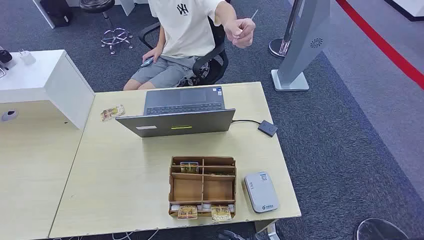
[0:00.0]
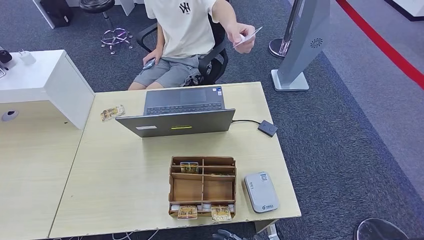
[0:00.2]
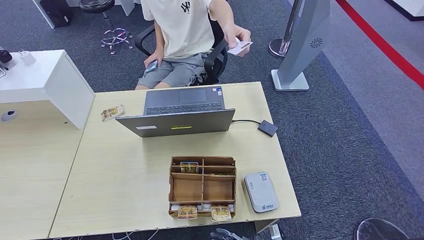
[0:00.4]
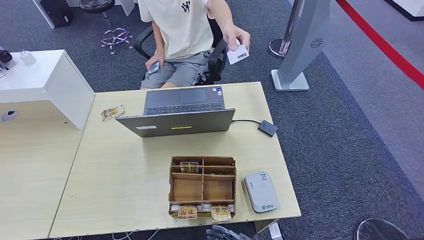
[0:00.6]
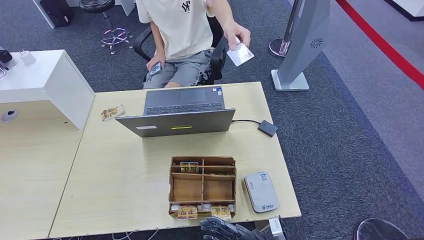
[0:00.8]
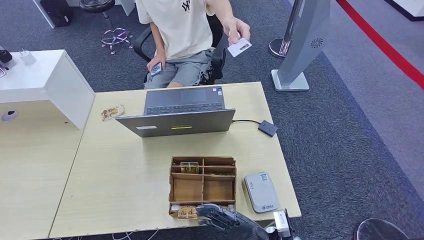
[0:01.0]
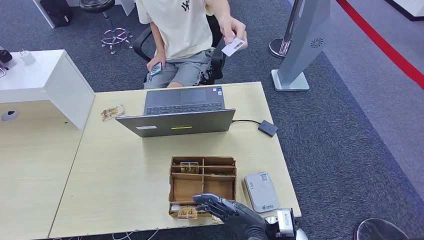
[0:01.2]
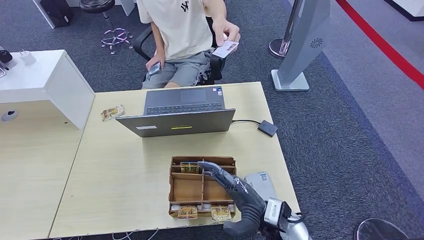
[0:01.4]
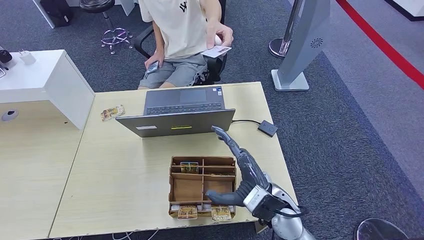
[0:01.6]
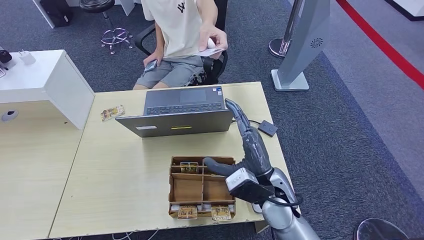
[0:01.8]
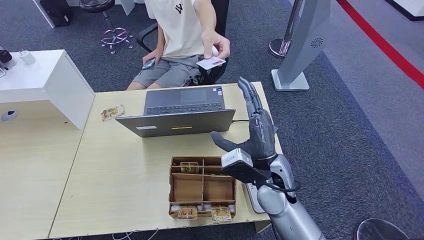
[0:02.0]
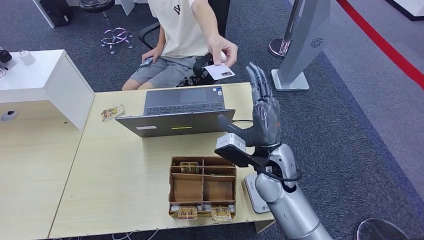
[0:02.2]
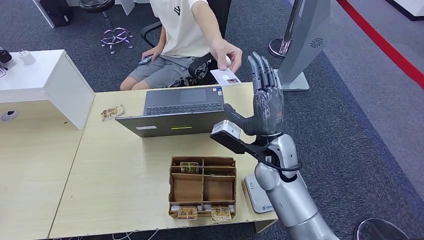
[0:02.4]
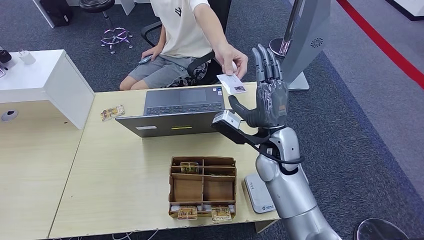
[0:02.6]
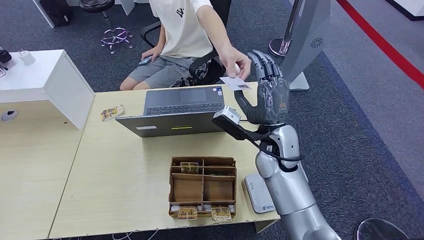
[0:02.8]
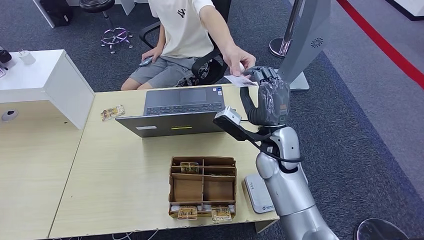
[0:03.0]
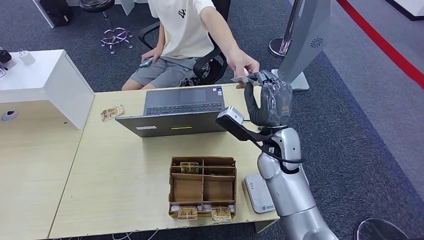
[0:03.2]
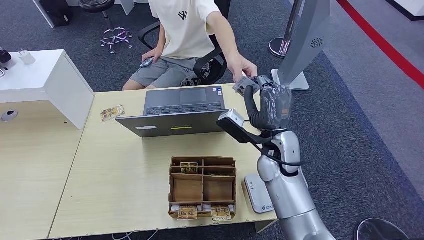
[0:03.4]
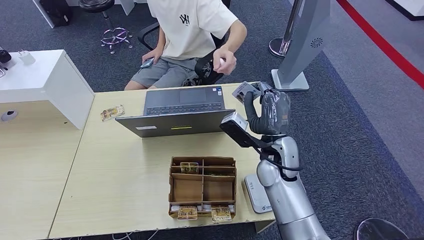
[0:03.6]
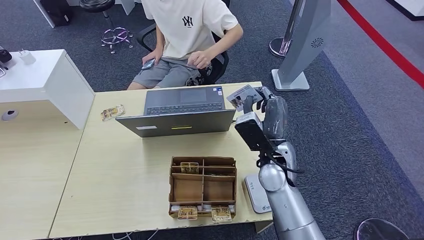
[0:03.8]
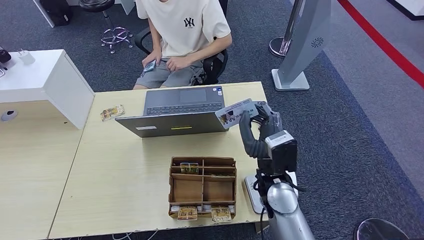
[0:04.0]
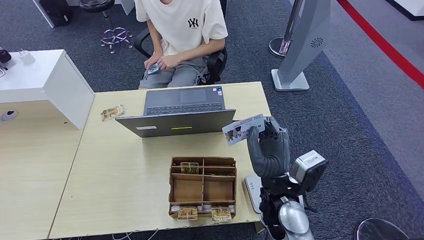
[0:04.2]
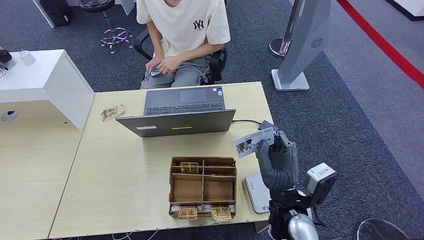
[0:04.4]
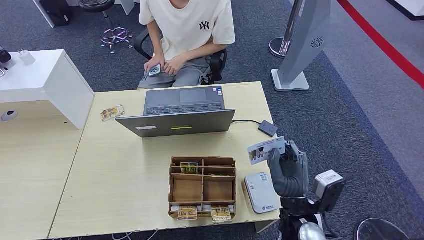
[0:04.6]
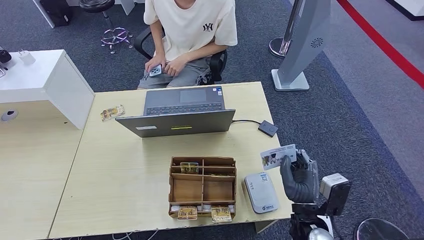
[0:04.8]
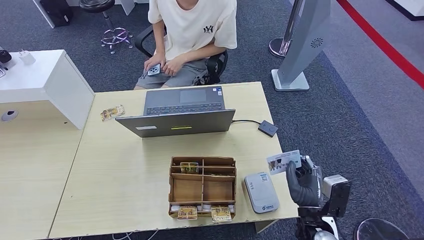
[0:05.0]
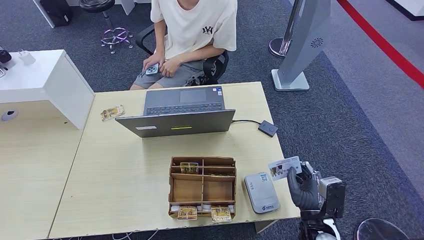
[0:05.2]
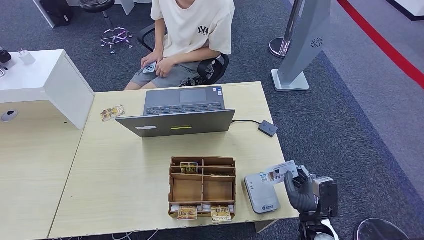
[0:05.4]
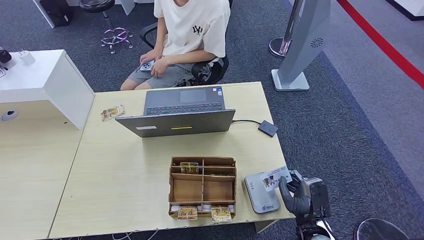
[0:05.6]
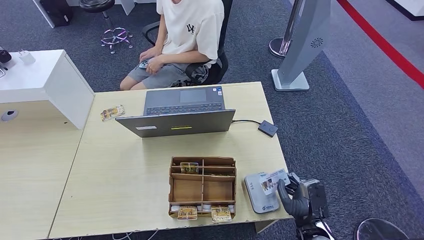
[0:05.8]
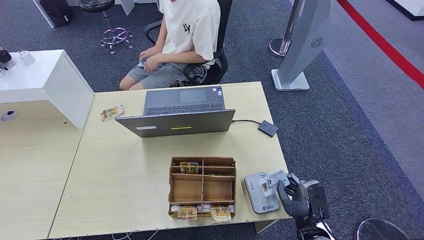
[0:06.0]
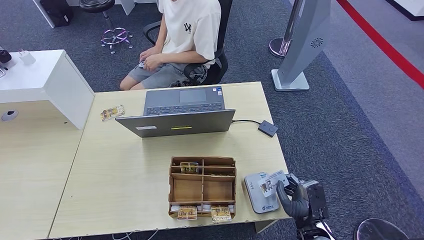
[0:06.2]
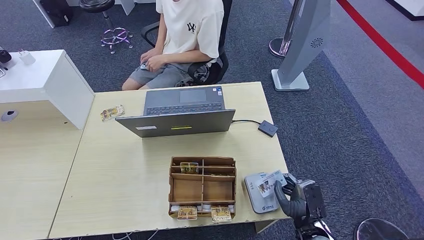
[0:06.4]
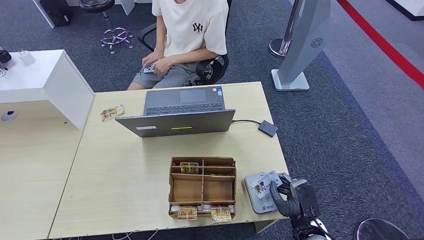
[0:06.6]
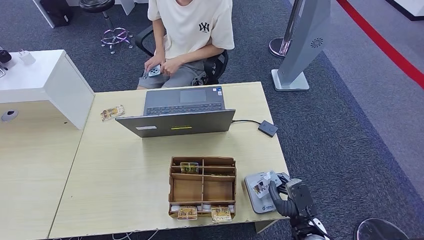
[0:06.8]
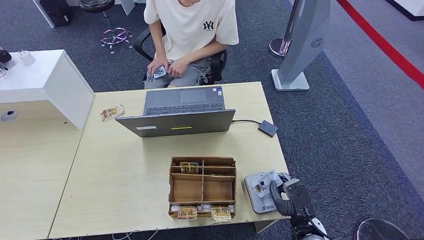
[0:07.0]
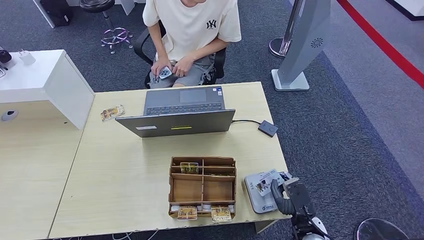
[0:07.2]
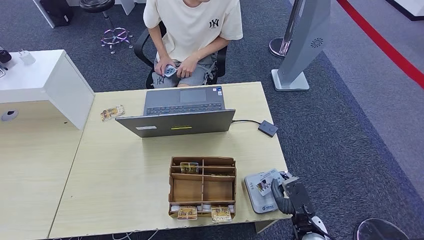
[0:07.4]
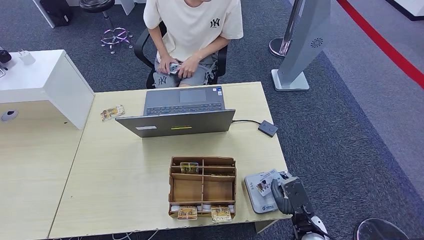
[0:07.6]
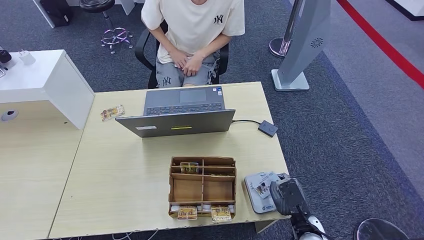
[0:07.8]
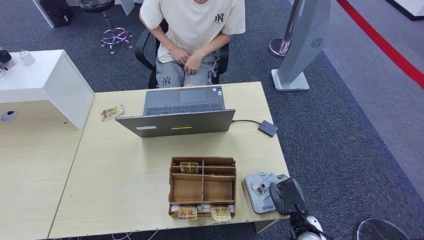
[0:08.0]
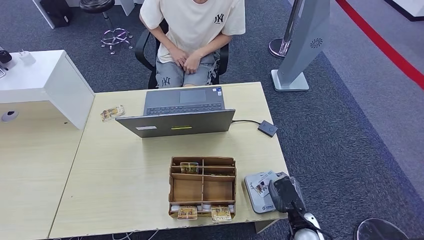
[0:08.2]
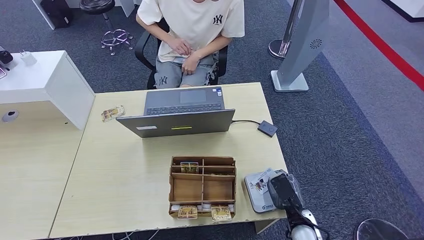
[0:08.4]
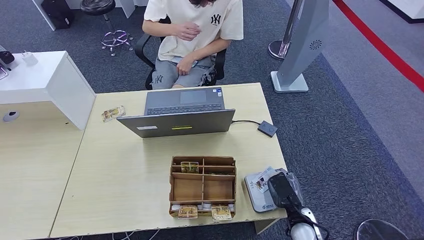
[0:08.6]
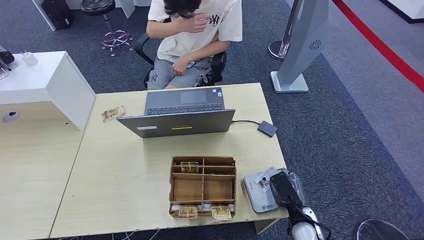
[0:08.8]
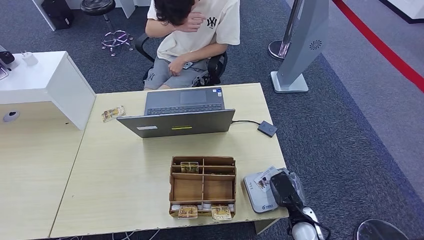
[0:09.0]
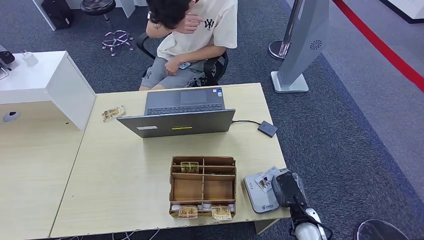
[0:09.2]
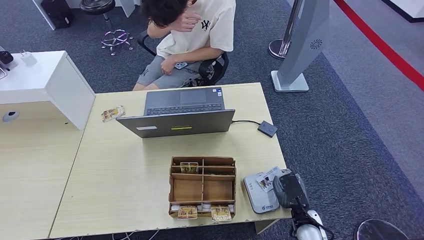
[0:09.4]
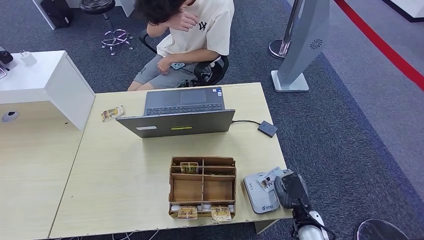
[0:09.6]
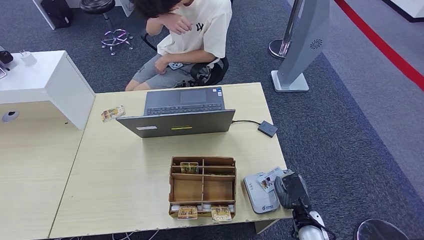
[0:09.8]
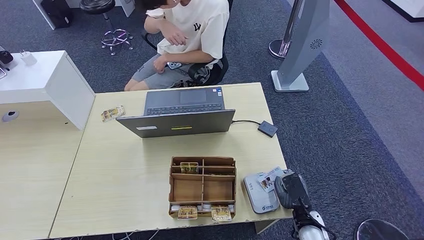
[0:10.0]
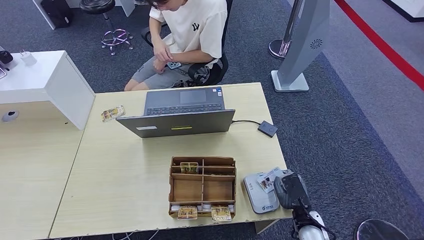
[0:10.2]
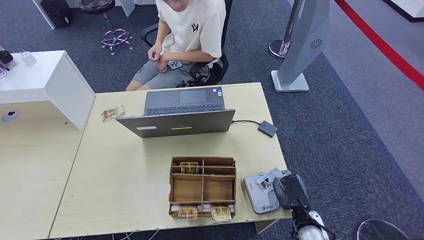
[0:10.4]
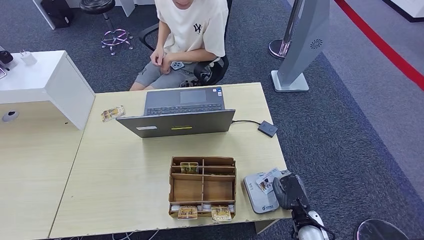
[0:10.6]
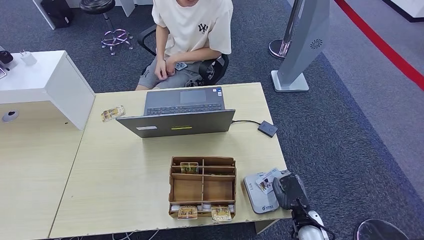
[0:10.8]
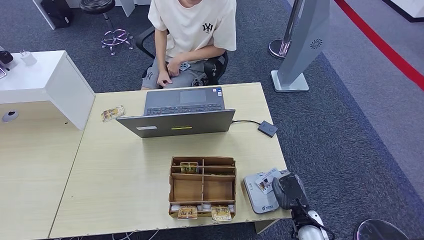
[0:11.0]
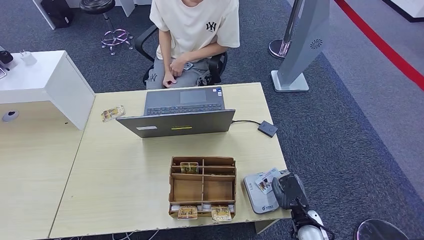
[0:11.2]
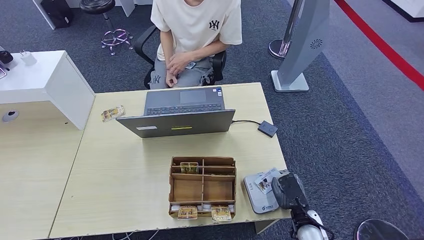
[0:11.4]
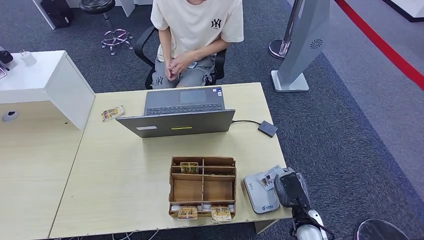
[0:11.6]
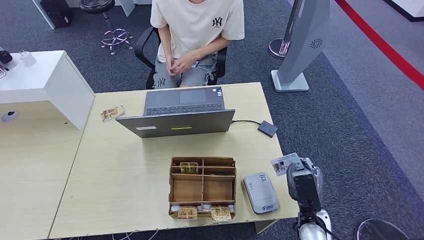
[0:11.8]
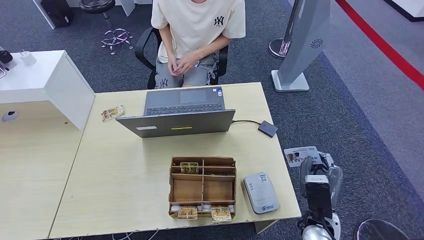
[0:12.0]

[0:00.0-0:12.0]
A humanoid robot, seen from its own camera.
Step, 0:00.0 to 0:04.4: Take the ID card from the person's hand.
0:01.6 to 0:03.0: The right hand moves forward and upward, roughly 15 cm.
0:03.0 to 0:04.4: The right hand travels backward and downward by roughly 15 cm.
0:04.4 to 0:06.0: The right hand heads downward and to the right, covering some 15 cm.
0:06.0 to 0:07.6: The hands make only small movements.
0:07.6 to 0:10.4: The hands move only a little.
0:10.4 to 0:12.0: The right hand is displaced upward by about 5 cm.

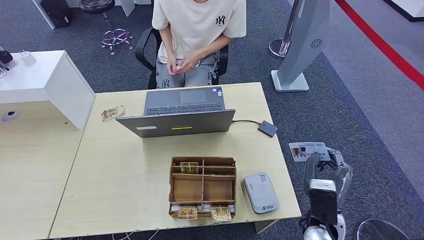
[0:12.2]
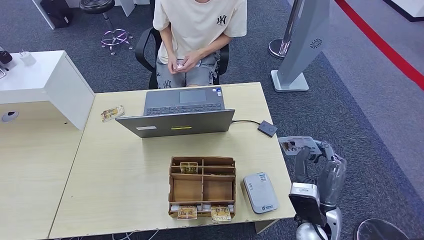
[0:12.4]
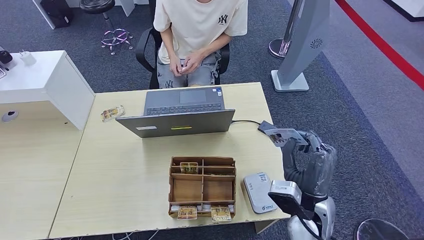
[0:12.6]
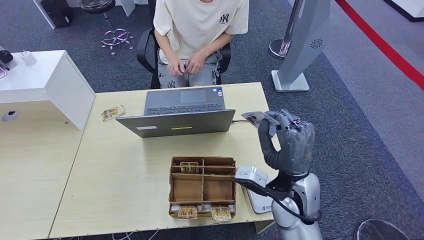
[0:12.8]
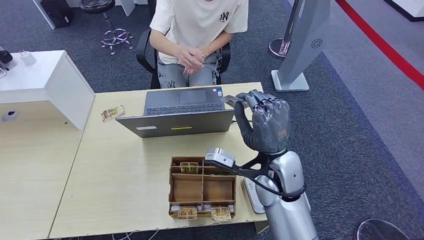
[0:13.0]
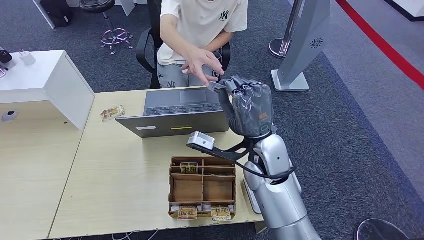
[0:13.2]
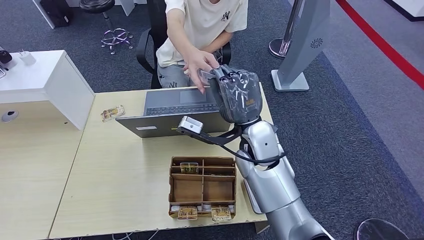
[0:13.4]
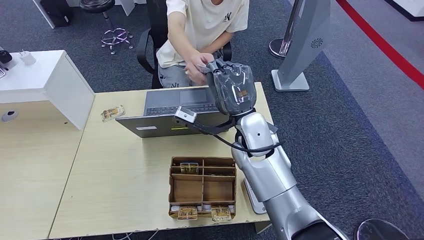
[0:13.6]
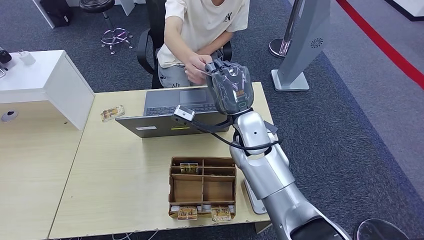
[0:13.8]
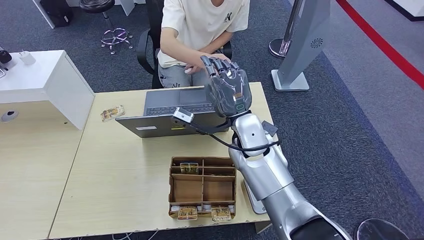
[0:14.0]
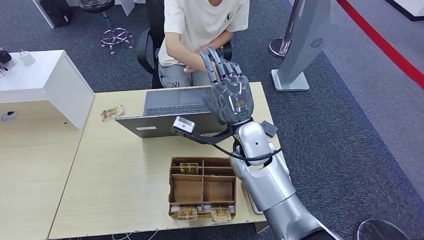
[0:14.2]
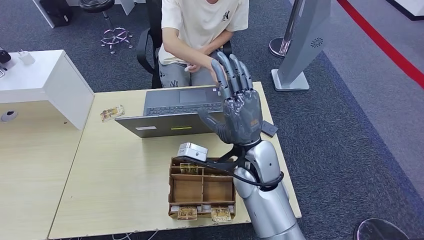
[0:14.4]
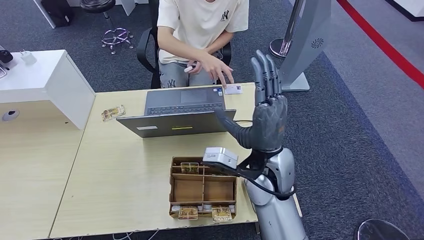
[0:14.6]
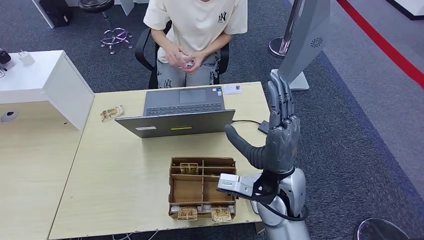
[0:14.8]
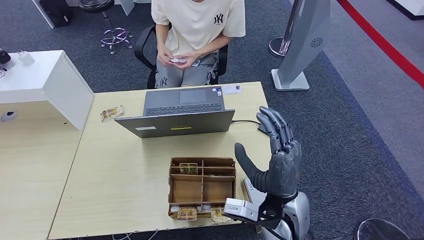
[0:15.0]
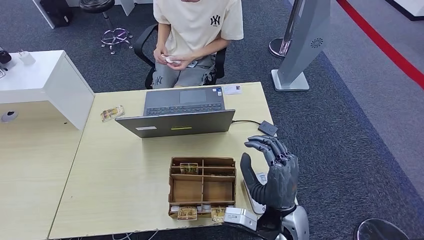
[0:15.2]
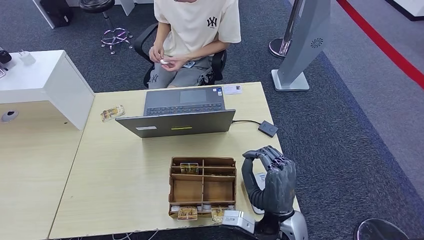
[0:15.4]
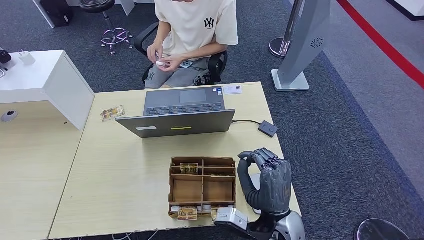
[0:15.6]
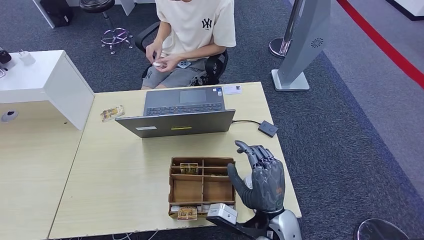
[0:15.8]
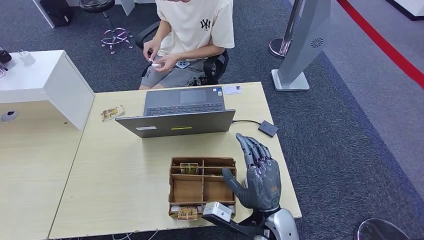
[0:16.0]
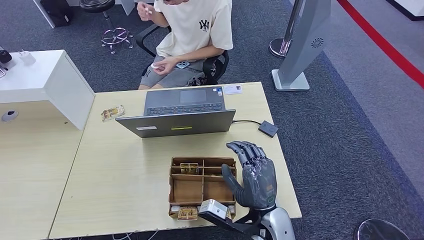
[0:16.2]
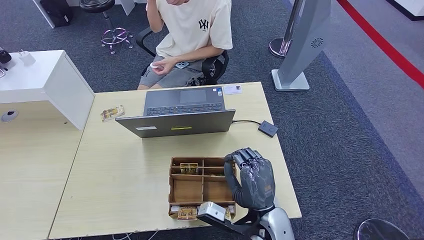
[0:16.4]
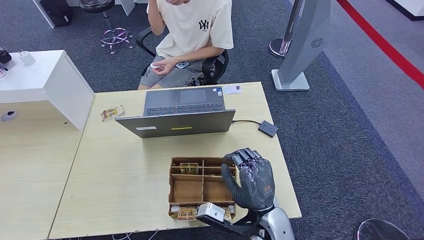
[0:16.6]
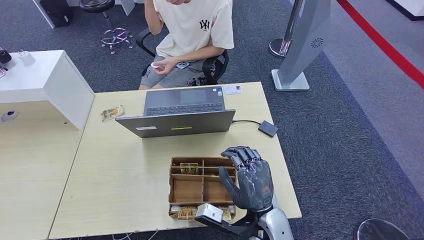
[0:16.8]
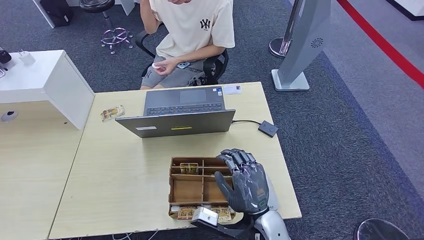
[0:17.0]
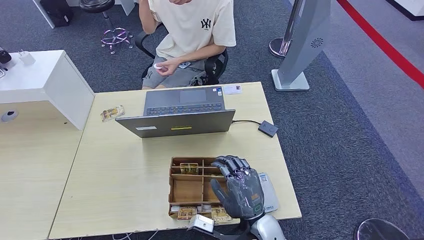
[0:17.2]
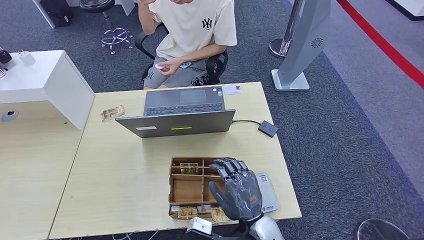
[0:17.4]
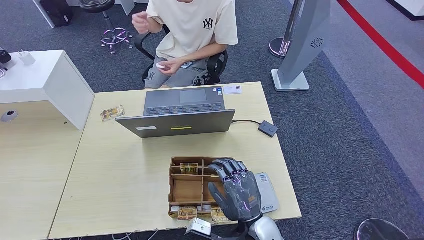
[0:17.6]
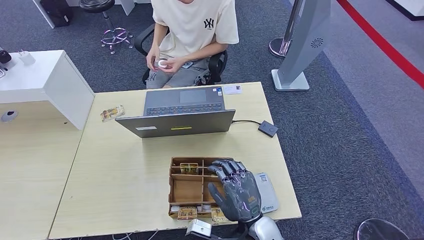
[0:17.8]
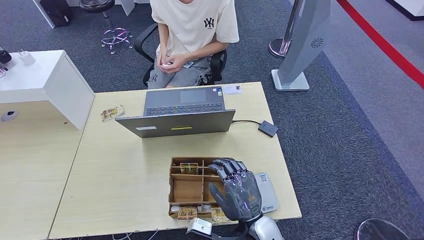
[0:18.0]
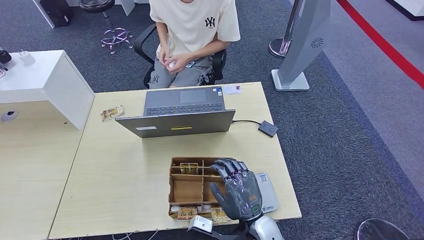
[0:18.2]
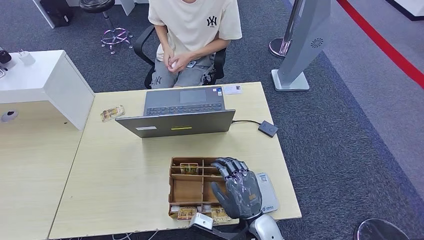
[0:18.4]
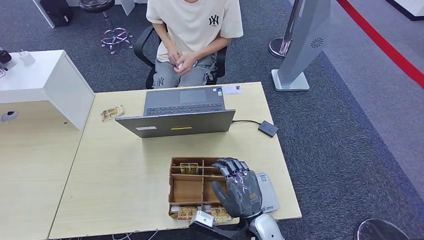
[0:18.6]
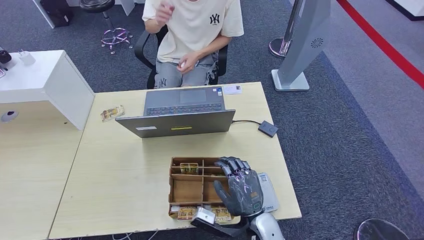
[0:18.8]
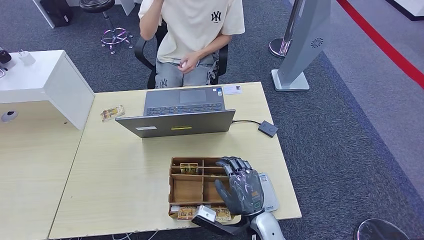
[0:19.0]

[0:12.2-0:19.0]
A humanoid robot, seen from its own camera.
Step, 0:12.6 to 0:15.4: Hand the ID card to the person.
0:12.2 to 0:13.6: The right hand moves forward, to the left and upward, some 25 cm.
0:13.6 to 0:15.0: The right hand heads backward and downward, covering some 15 cm.
0:15.0 to 0:16.2: The right hand moves about 5 cm.
0:16.2 to 0:19.0: The hands stay close to where they were, moving slightly.
